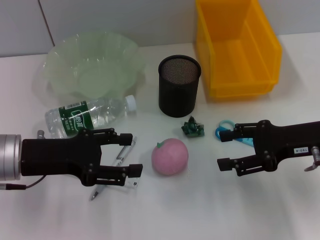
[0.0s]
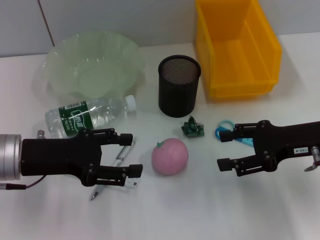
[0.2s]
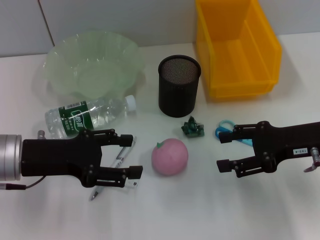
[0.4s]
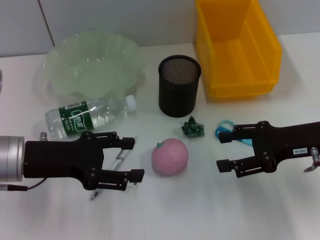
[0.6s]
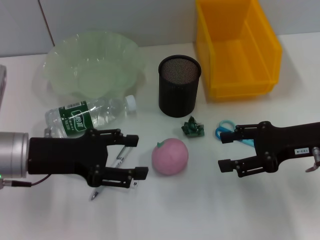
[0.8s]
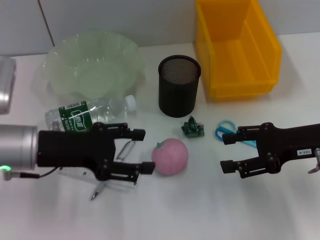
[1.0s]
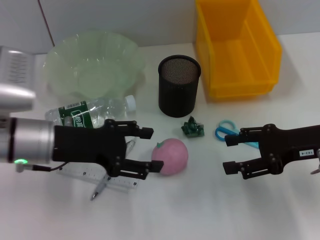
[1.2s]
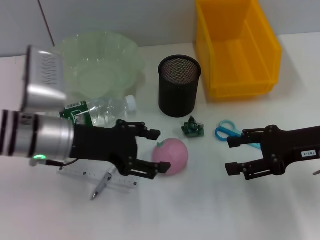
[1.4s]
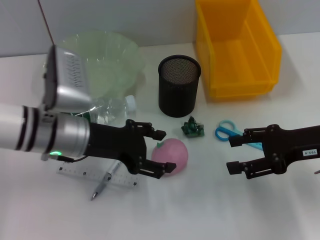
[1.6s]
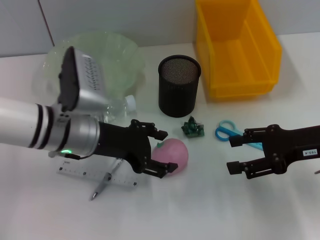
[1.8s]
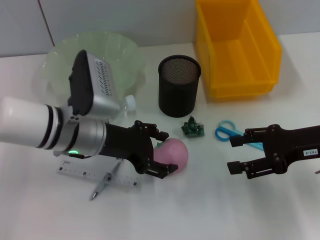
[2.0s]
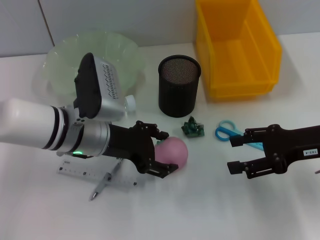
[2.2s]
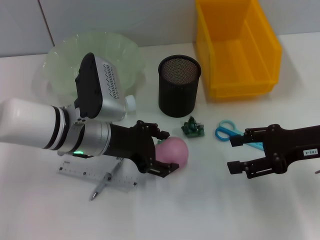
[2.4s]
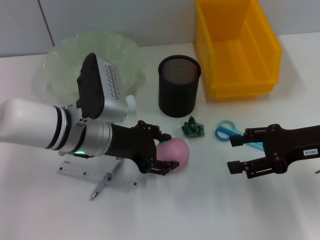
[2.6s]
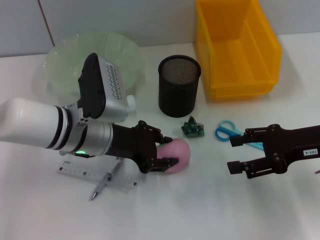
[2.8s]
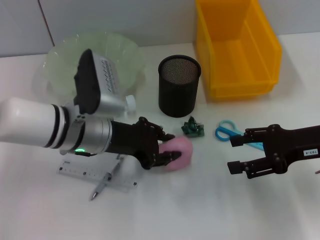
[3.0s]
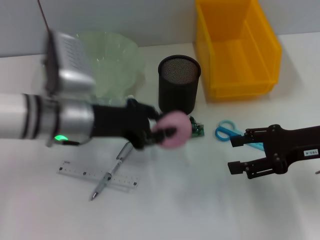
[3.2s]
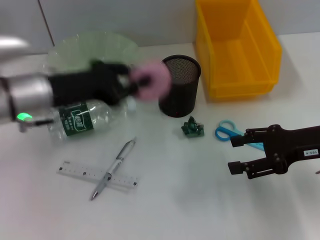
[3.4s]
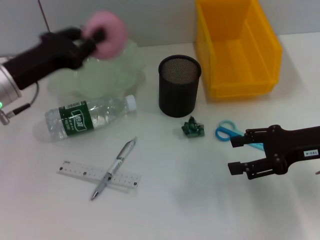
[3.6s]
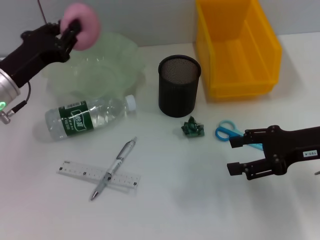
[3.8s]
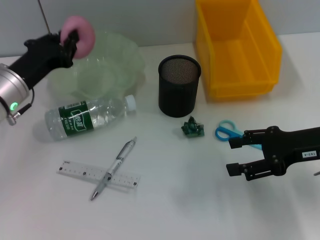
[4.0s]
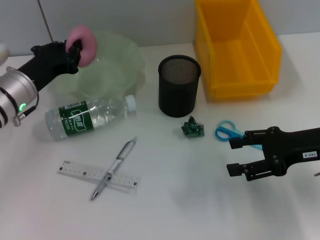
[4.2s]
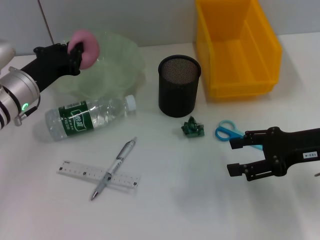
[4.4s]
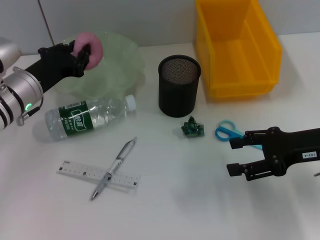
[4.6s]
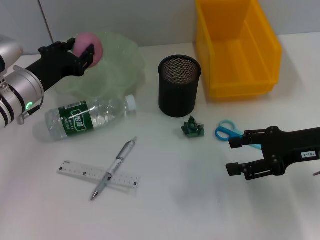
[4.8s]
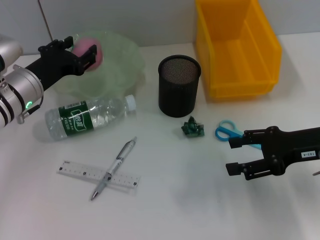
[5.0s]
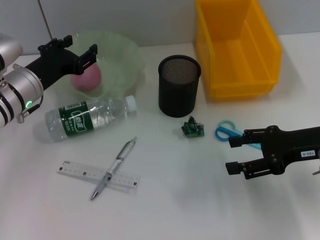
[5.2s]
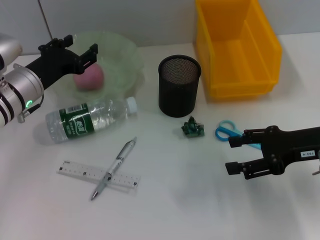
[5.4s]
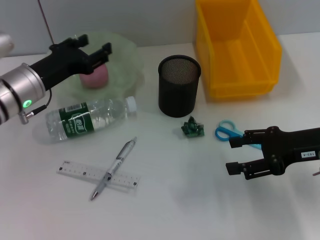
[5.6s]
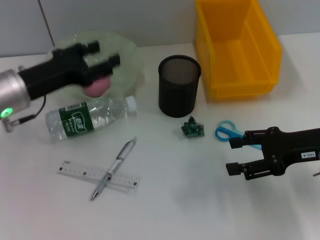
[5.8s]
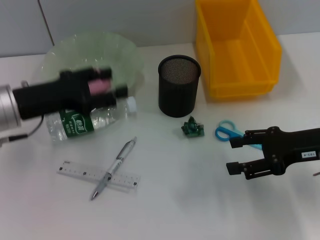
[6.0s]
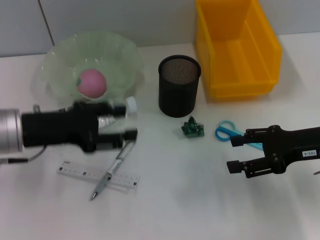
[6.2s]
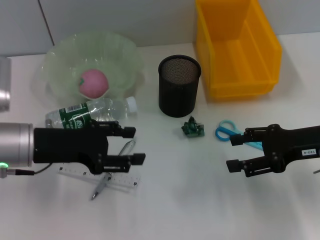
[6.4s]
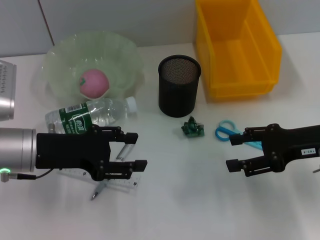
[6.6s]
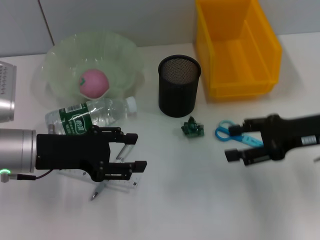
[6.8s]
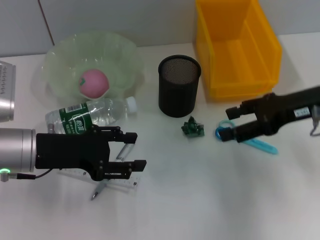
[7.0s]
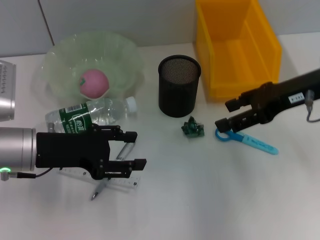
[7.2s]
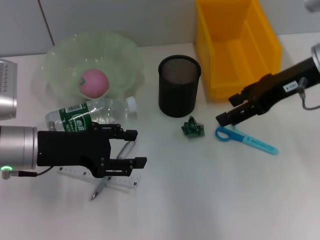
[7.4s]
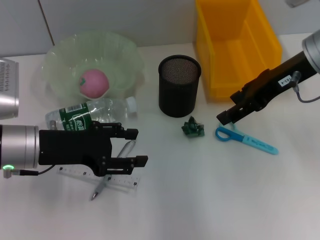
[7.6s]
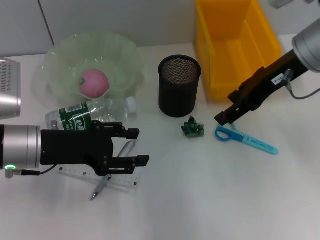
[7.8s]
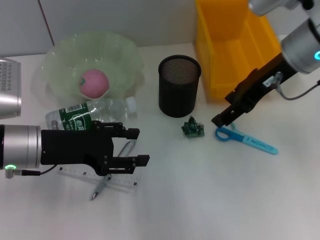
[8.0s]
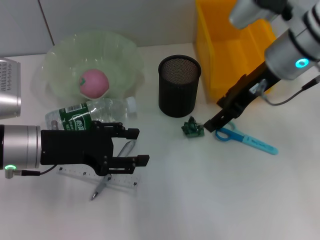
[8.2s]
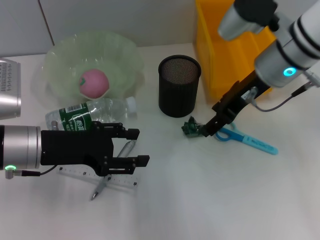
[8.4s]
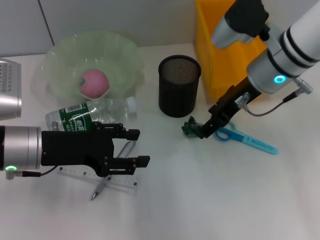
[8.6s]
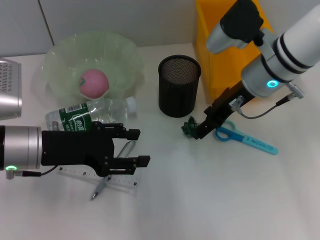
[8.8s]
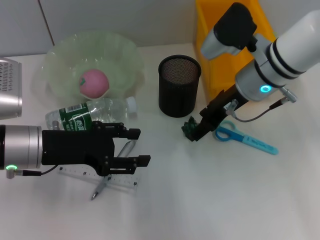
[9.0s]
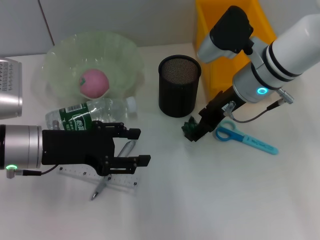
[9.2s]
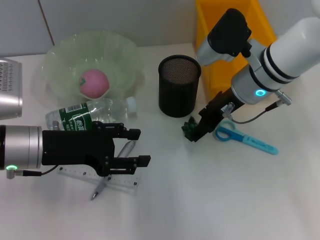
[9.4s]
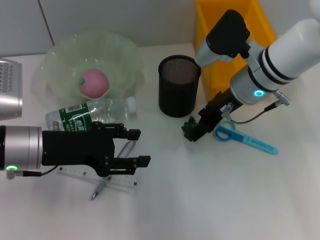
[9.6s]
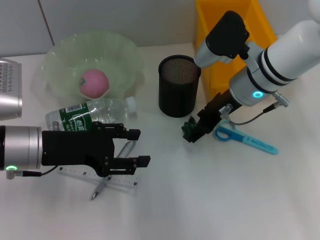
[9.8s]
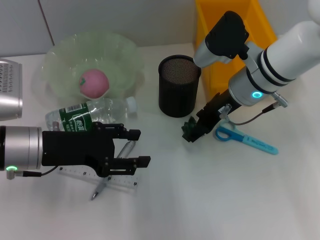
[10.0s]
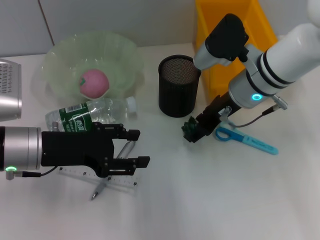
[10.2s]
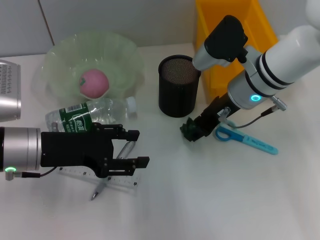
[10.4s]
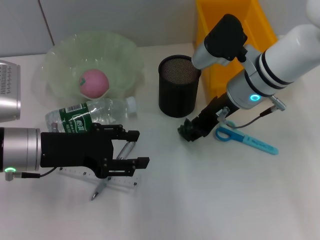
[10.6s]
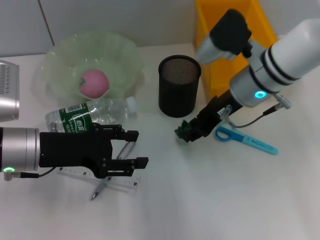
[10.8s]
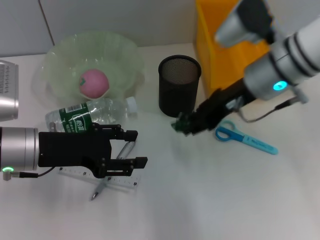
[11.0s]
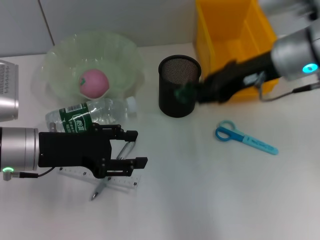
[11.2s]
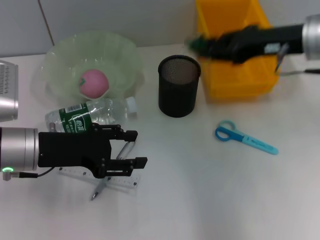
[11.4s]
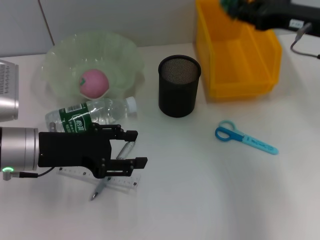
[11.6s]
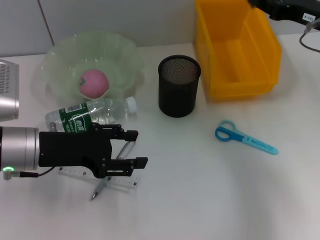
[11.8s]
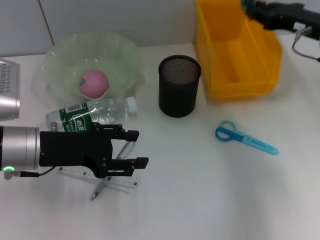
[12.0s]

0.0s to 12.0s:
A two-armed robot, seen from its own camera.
Step, 0.0s to 2.8s: Grab the peach with the left hand.
Step, 3.0s to 5.2s: Place the peach into the fruit bowl with the left hand.
Step, 5.4s to 10.4s: Grab the plastic with the right hand.
0.0s to 1.6s: The left gripper shifts roughly 5 cm to the right.
1.6s to 3.0s: The left gripper closes.
3.0s to 4.4s: The left gripper heads to the left, covering some 10 cm, and closes up.
4.4s to 6.0s: The left gripper shifts about 5 cm backward, and opens its fingers.
6.0s to 7.6s: The right gripper travels upward, forward and to the left by some 15 cm.
7.6s to 9.0s: The right gripper travels downward and to the left by approximately 10 cm.
9.0s to 10.4s: The grippers stay close to where they were, moving slightly.
10.4s to 12.0s: The right gripper goes about 15 cm to the right, and closes.

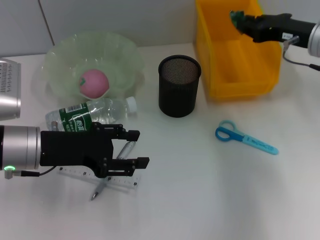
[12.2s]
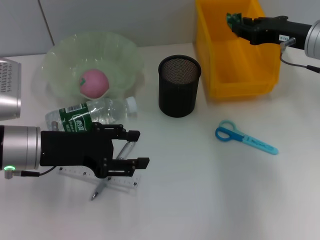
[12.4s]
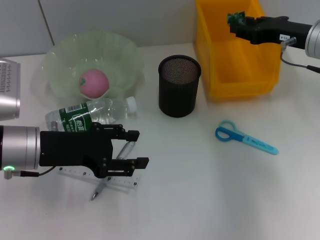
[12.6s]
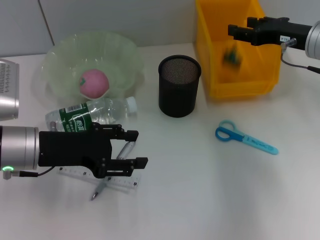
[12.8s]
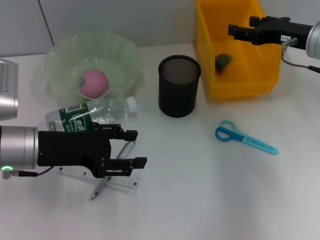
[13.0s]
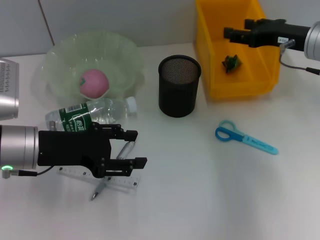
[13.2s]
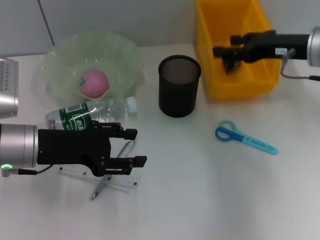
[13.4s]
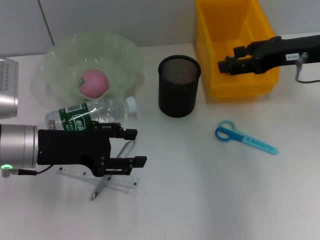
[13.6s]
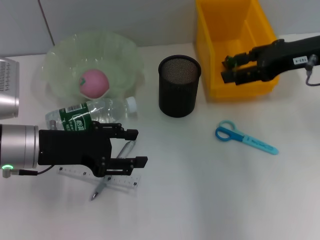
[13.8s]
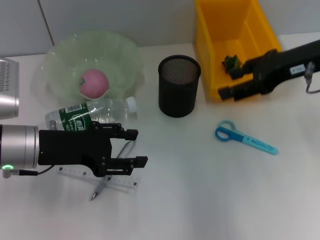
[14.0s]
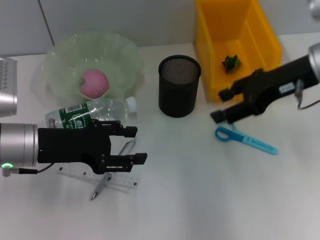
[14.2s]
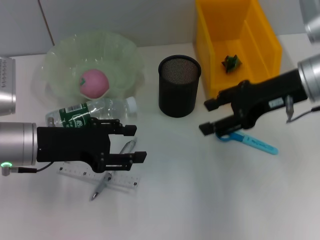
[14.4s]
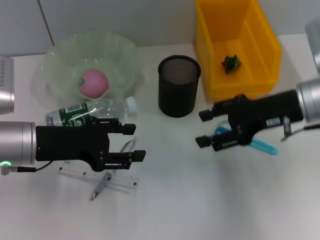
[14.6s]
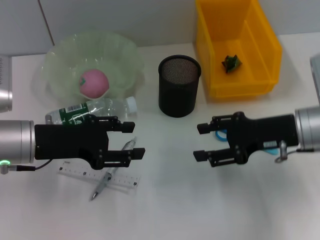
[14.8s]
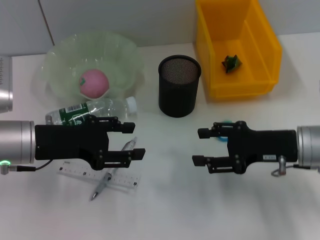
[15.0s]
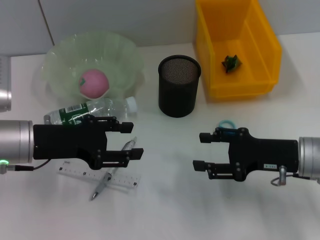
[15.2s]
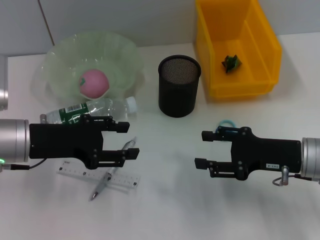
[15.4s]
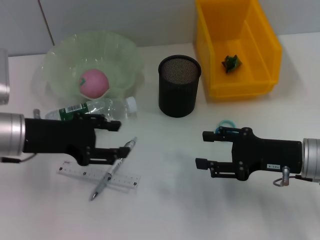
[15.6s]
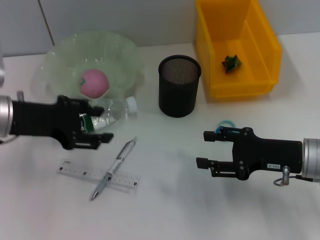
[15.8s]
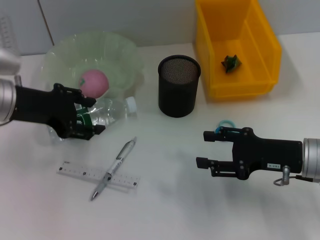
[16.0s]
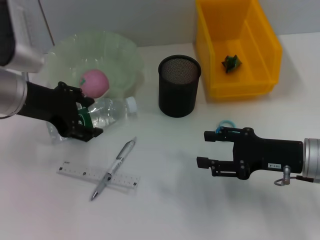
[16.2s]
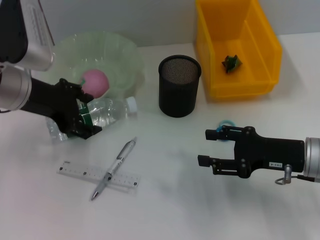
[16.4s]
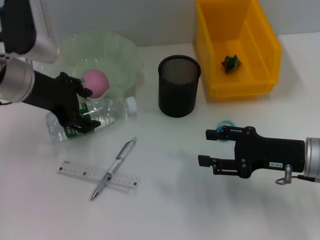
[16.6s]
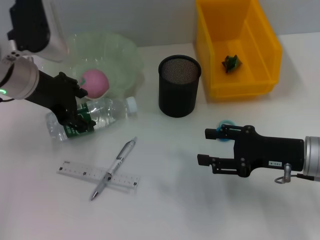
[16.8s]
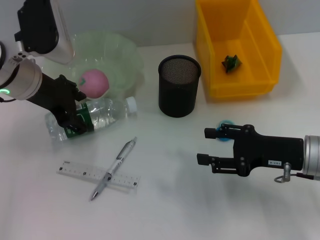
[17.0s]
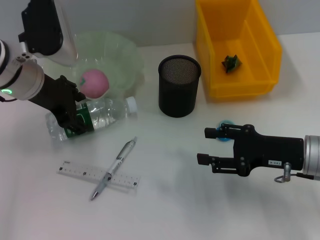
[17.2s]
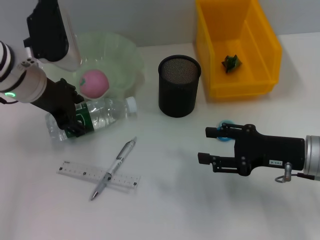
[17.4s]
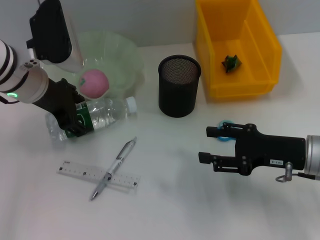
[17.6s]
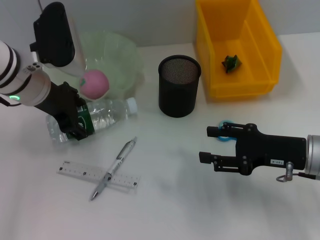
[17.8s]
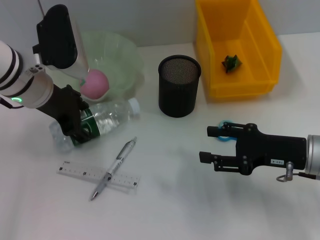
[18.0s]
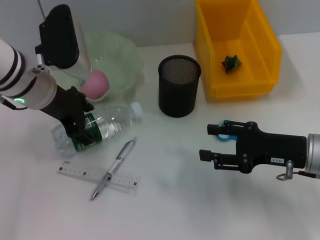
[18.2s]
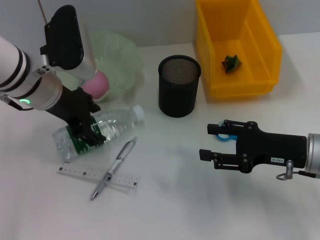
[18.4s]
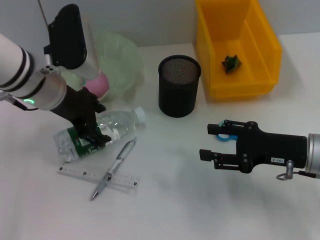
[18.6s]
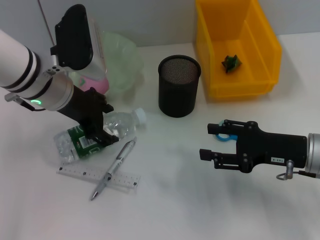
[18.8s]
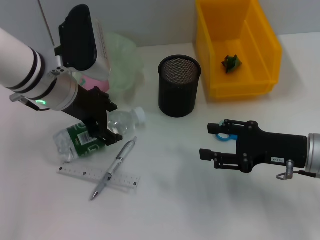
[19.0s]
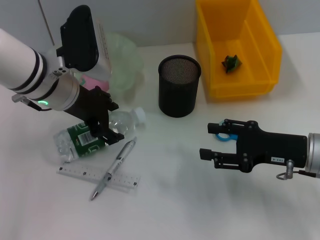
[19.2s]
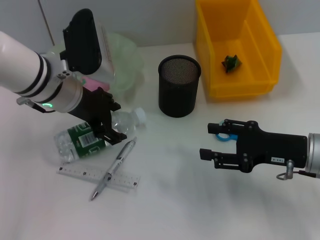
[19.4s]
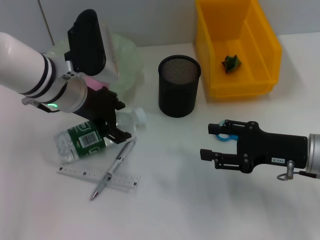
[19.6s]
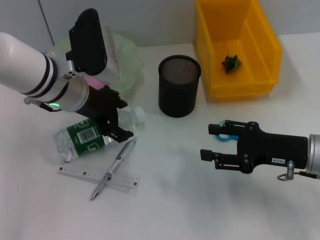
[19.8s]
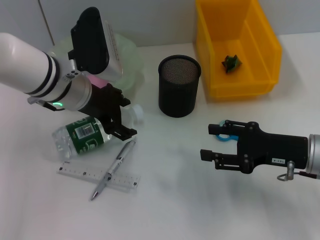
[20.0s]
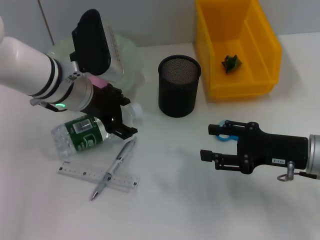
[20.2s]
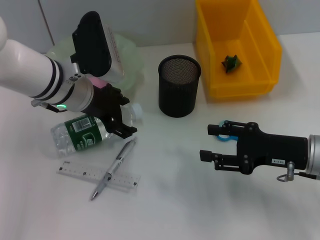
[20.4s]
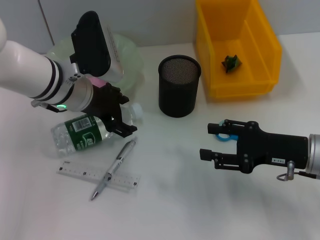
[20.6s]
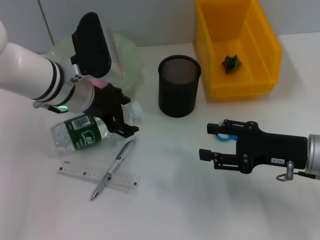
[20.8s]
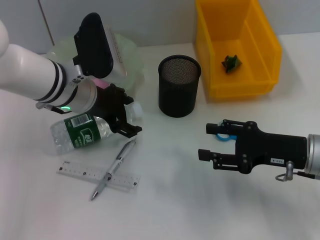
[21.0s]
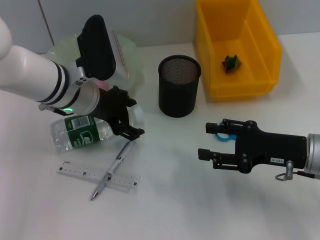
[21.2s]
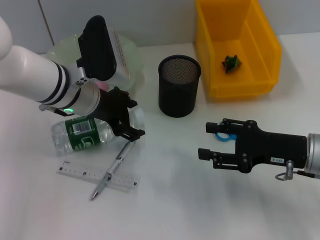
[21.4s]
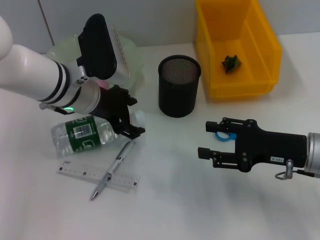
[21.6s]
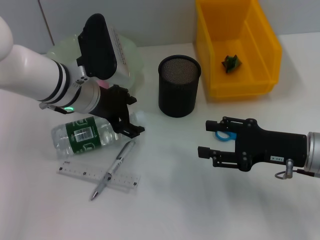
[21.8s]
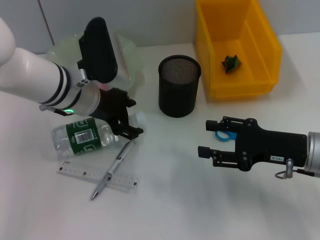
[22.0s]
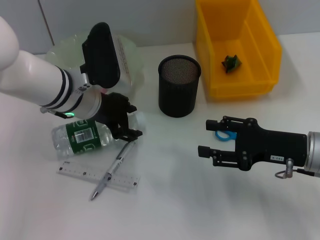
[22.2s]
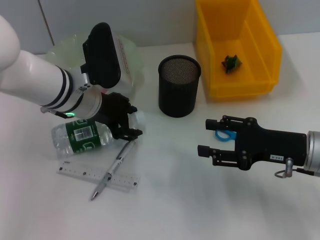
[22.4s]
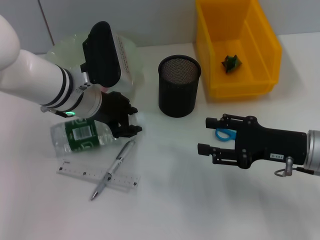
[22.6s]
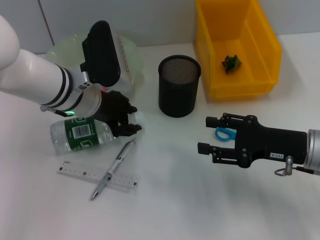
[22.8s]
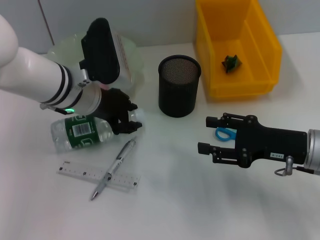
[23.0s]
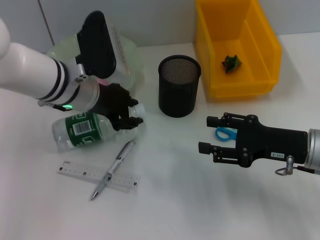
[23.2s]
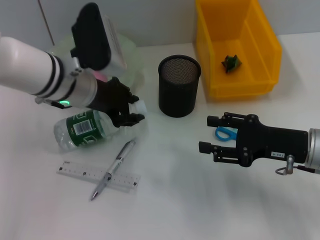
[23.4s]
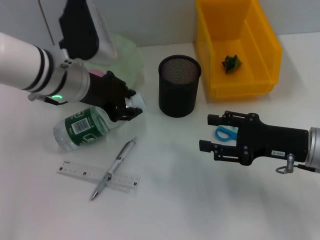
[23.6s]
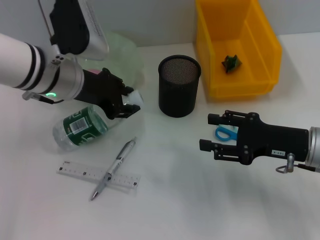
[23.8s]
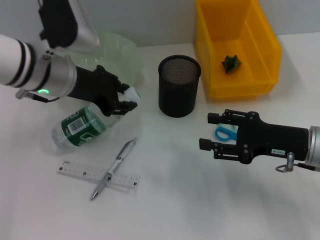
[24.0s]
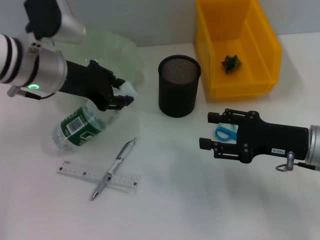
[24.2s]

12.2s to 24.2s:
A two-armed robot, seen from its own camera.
Step, 13.2s to 22.6s: Grab the water bottle with the left hand.
12.2s to 13.8s: The right gripper travels upward by about 5 cm, and opens up.
13.8s to 15.2s: The right gripper heads downward and backward, covering roughly 15 cm.
15.2s to 16.6s: The left gripper travels upward and forward by some 10 cm.
16.6s to 18.2s: The grippers move only a little.
18.2s to 21.2s: The grippers stay close to where they were, moving slightly.
21.2s to 22.6s: The left gripper closes.
22.6s to 24.2s: The left gripper changes place by approximately 5 cm.
